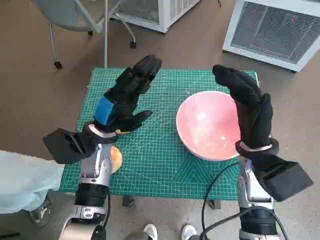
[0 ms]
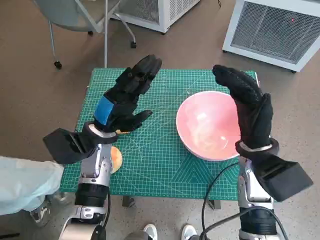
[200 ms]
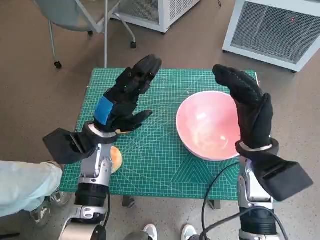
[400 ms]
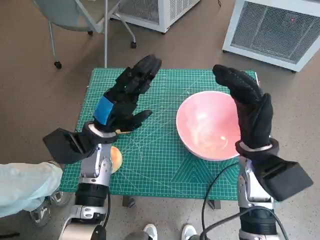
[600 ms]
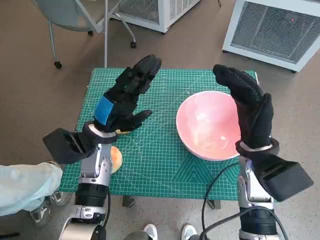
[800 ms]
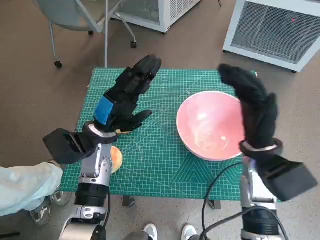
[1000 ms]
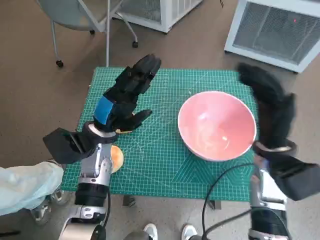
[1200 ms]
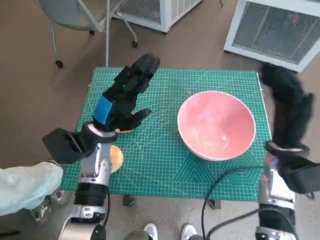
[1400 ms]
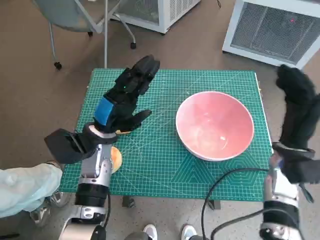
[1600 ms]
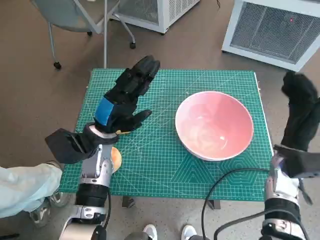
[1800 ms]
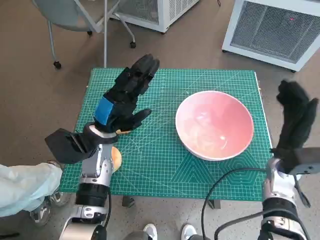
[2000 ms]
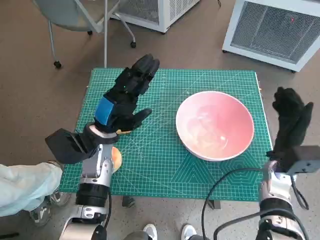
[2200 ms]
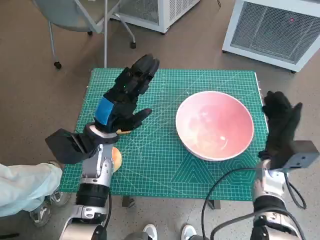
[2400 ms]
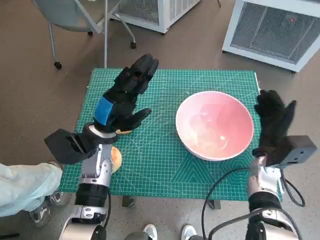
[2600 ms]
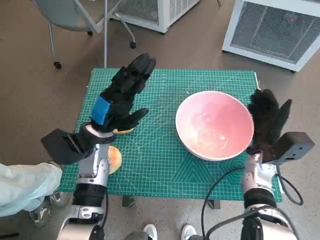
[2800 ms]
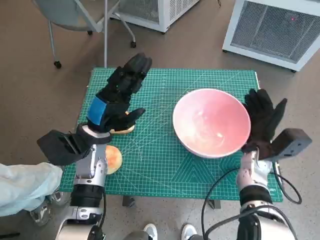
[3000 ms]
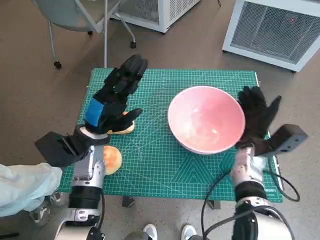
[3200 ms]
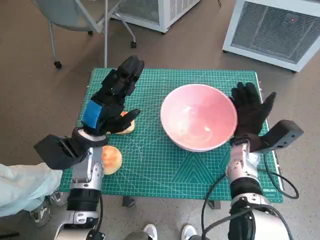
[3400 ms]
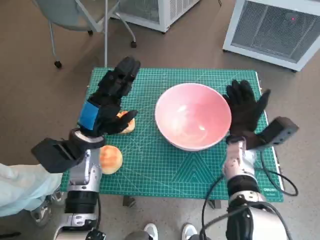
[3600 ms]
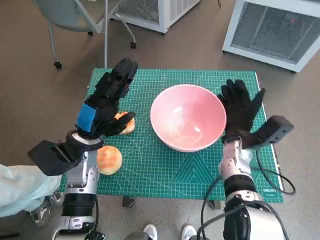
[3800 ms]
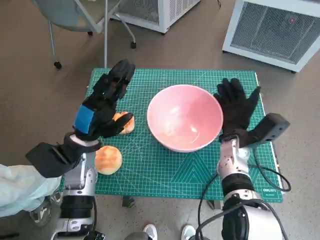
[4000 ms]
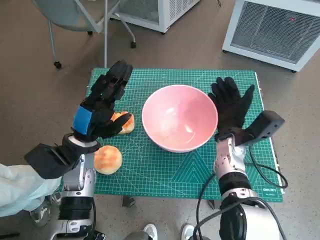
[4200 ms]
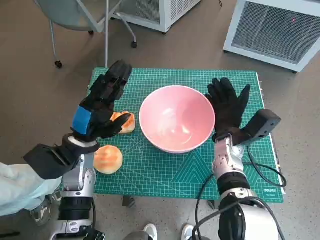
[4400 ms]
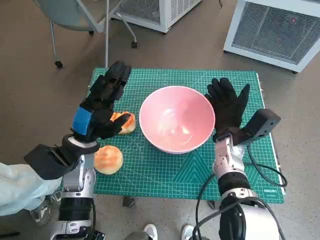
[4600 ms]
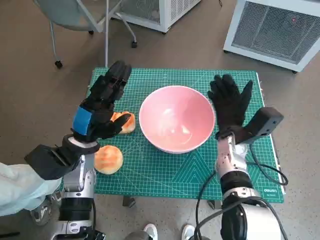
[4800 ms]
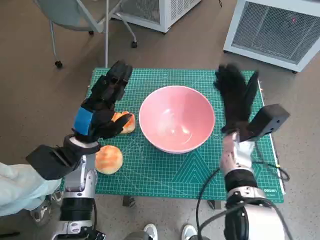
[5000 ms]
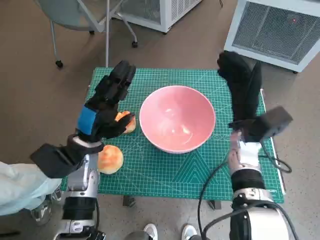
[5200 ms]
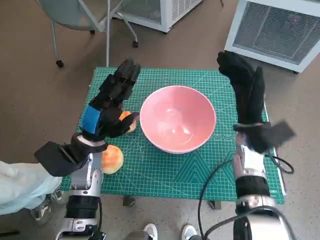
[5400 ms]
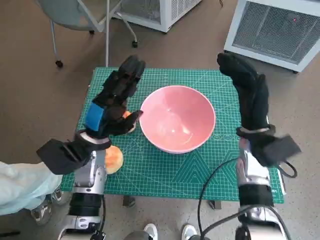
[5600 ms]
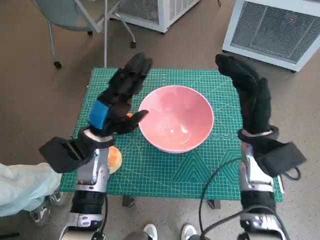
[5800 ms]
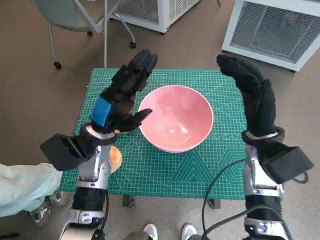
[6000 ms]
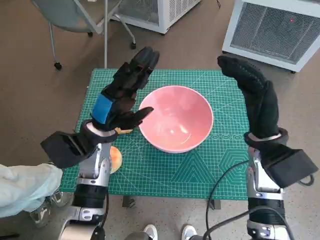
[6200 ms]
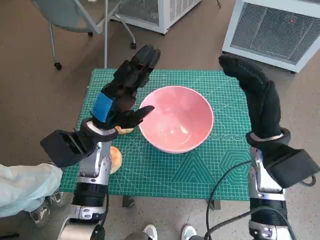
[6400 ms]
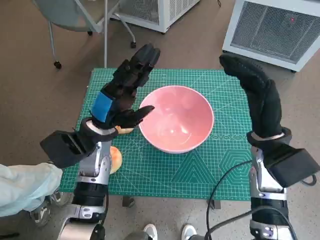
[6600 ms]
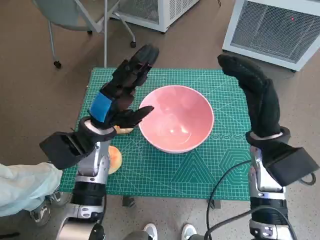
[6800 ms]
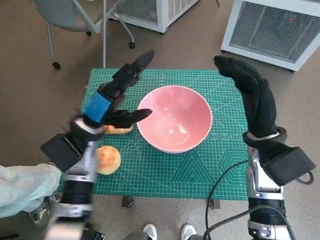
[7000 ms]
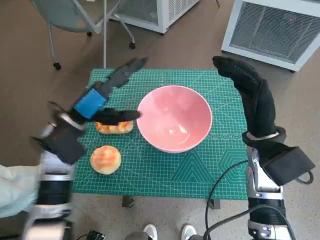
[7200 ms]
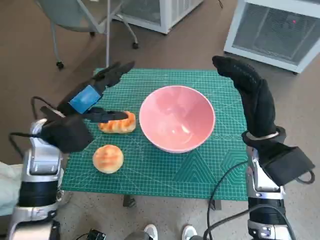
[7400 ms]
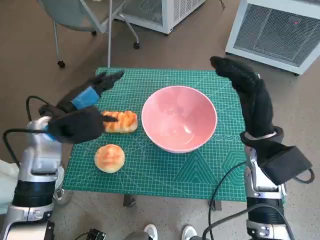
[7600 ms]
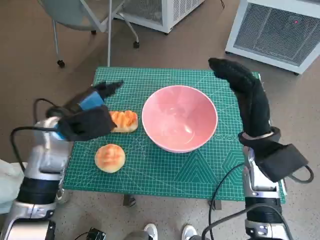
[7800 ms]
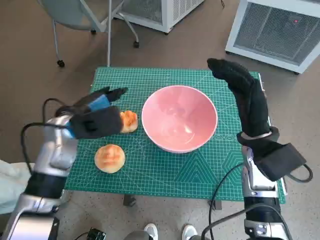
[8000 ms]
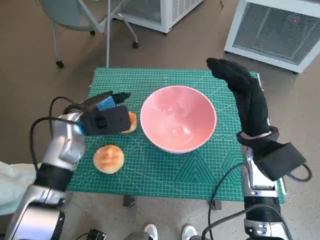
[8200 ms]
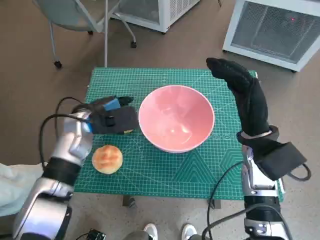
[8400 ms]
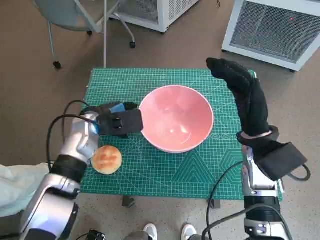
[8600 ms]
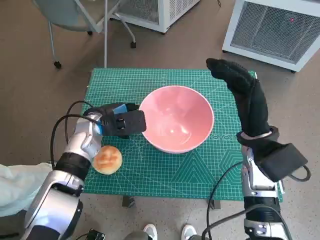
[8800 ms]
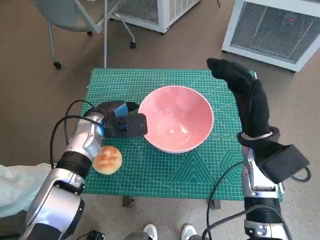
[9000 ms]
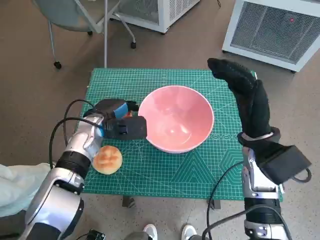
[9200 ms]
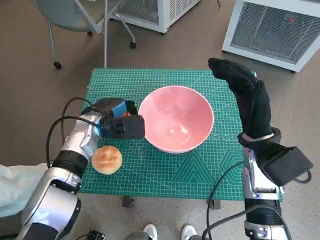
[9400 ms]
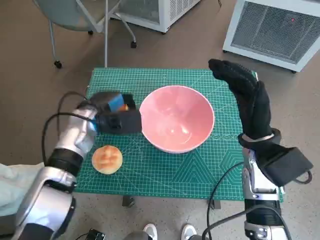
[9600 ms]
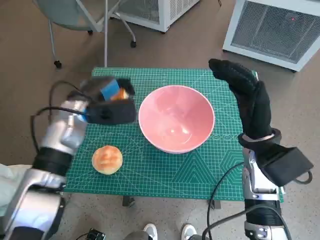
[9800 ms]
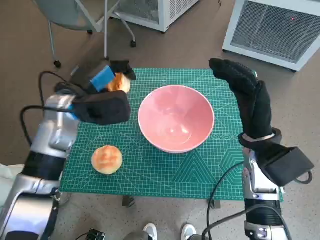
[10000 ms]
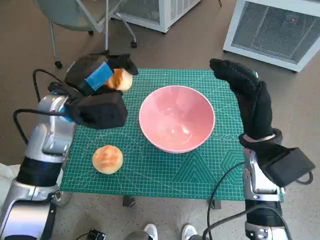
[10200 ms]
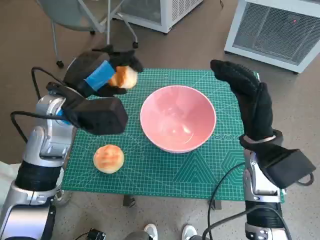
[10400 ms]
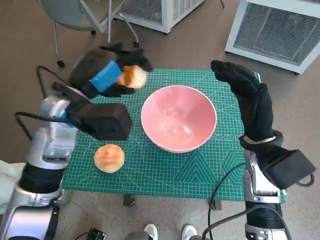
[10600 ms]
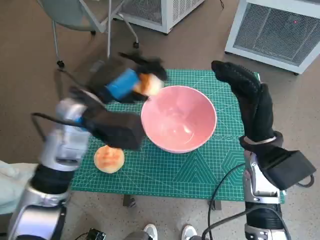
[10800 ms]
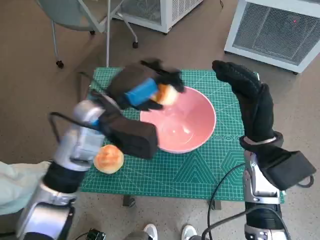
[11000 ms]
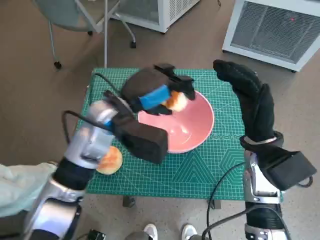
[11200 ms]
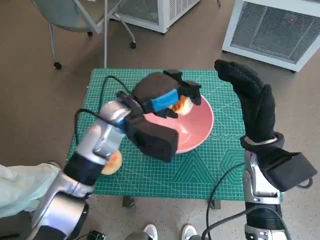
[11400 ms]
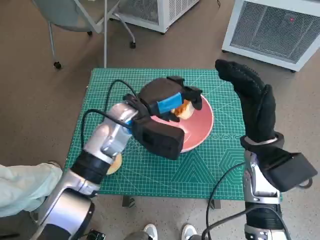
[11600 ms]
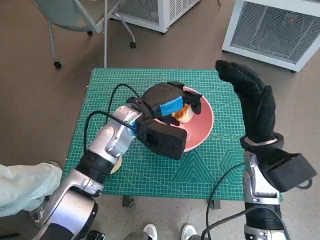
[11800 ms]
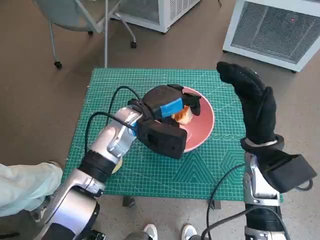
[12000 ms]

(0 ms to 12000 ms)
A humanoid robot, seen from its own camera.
Task of the whole recording: Push the bowl into the center of the table and put the bread into the bowl.
Step, 0 ms - 4800 ms: Move the pink bowl to the center of table with right hand.
Step, 5000 ms - 9000 ms: Grasp the long bread with left hand.
1600 ms - 3000 ms: The right hand goes roughly 5 cm downward.
3000 ms - 4400 ms: The right hand heads to the left, covering approximately 5 cm.
4400 ms - 6000 ms: The right hand is displaced upward by about 10 cm.
6000 ms - 7600 ms: The left hand heads to the left and upward, covering roughly 10 cm.
7600 ms - 9000 ms: The left hand is displaced downward and forward by roughly 10 cm.
9000 ms - 10400 ms: The left hand heads upward, covering about 10 cm.
10400 ms - 12000 ms: The left hand travels to the right and downward by approximately 10 cm.

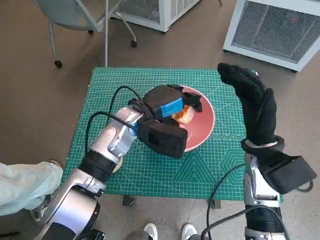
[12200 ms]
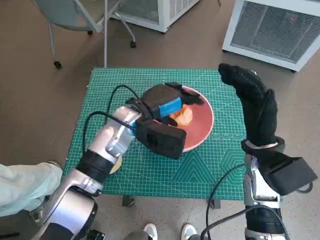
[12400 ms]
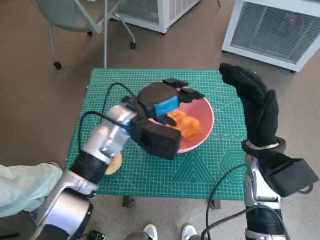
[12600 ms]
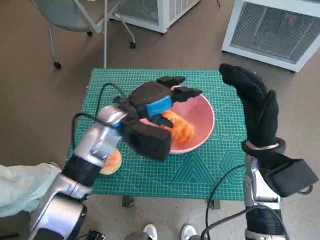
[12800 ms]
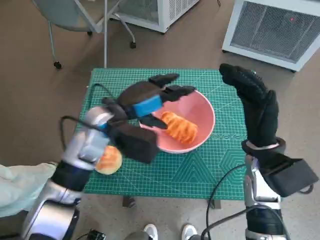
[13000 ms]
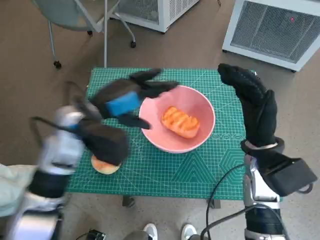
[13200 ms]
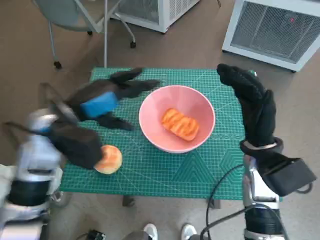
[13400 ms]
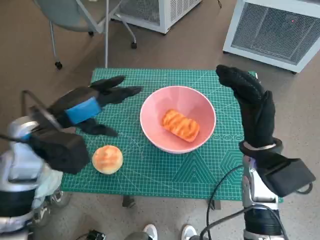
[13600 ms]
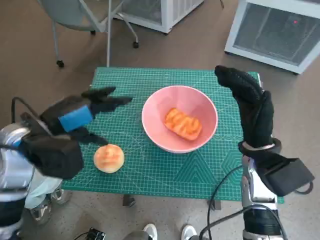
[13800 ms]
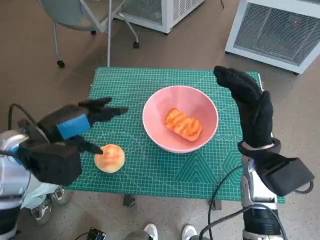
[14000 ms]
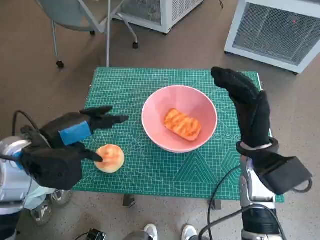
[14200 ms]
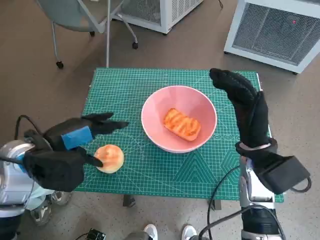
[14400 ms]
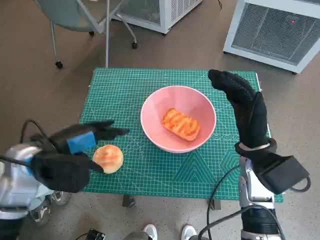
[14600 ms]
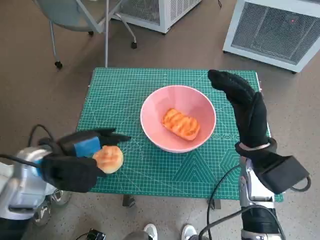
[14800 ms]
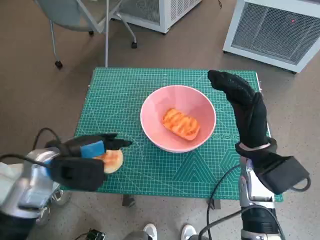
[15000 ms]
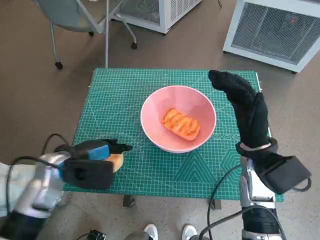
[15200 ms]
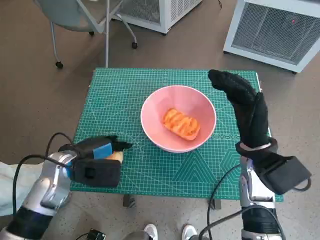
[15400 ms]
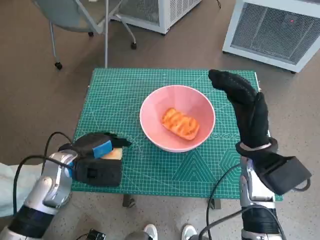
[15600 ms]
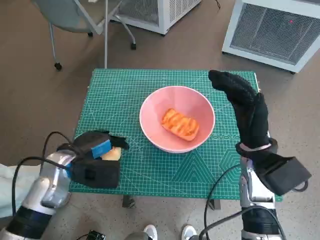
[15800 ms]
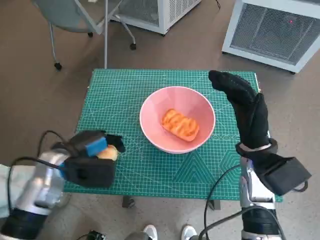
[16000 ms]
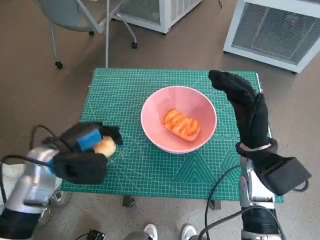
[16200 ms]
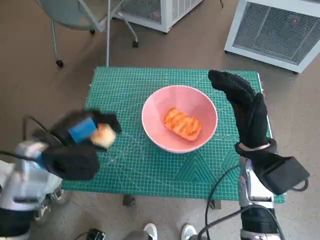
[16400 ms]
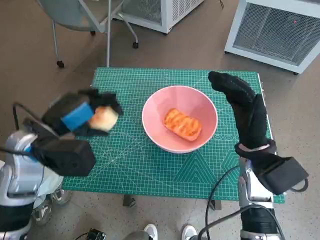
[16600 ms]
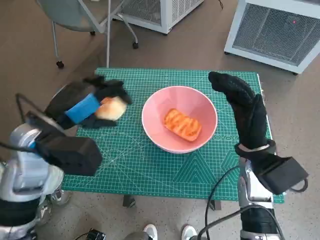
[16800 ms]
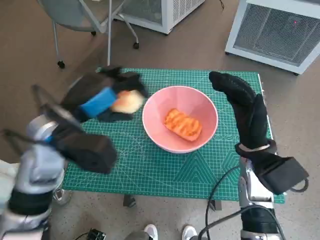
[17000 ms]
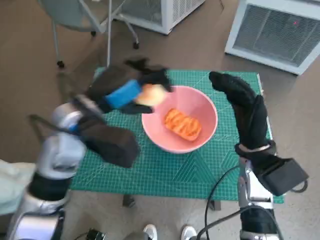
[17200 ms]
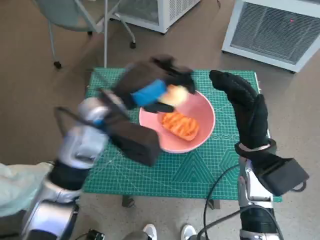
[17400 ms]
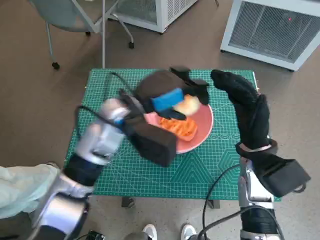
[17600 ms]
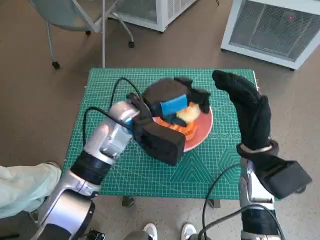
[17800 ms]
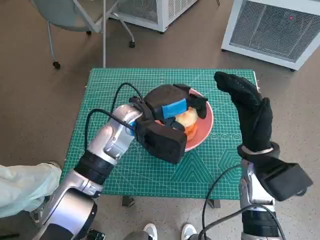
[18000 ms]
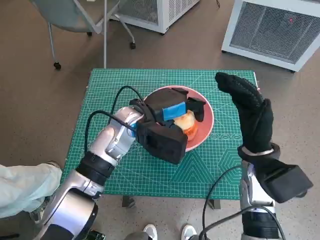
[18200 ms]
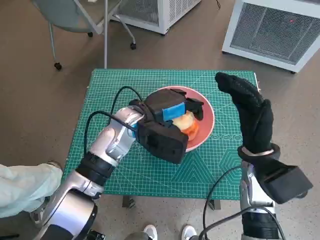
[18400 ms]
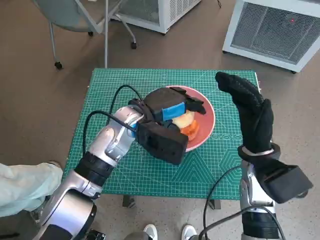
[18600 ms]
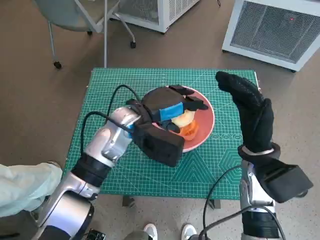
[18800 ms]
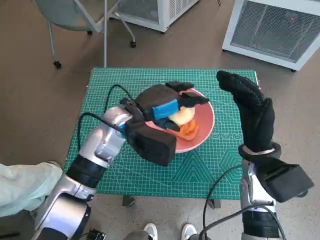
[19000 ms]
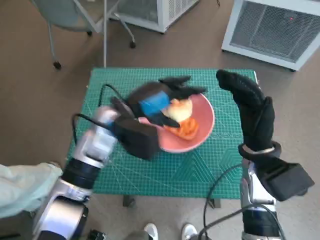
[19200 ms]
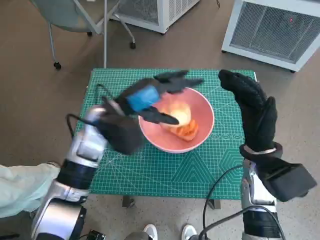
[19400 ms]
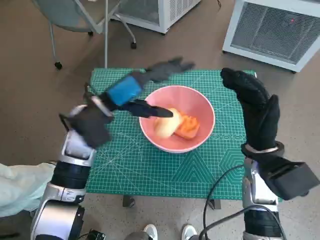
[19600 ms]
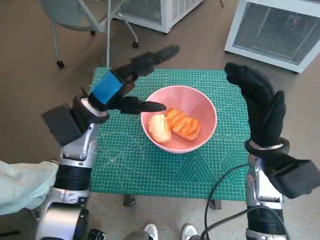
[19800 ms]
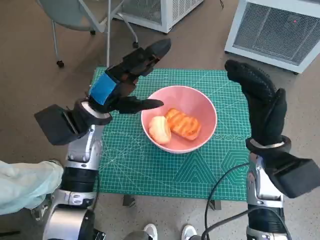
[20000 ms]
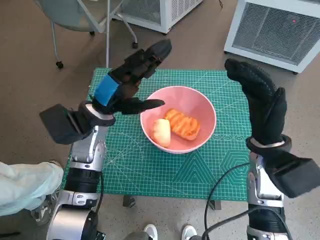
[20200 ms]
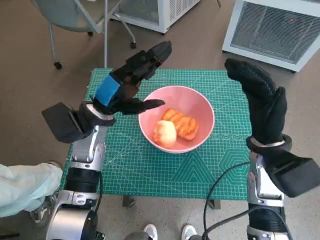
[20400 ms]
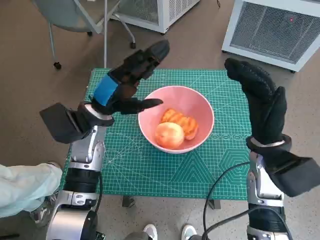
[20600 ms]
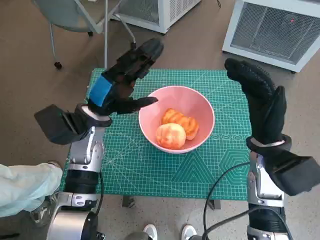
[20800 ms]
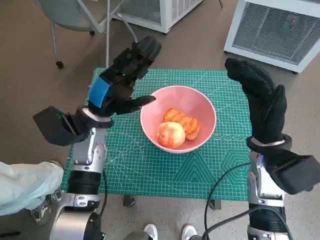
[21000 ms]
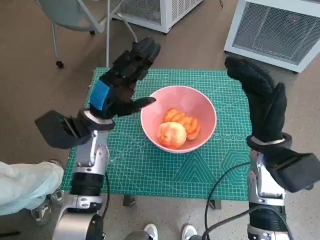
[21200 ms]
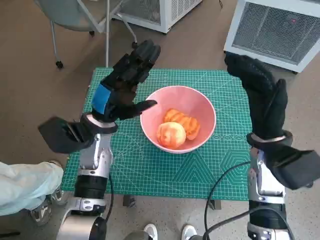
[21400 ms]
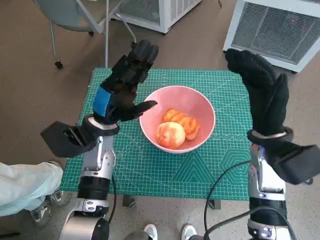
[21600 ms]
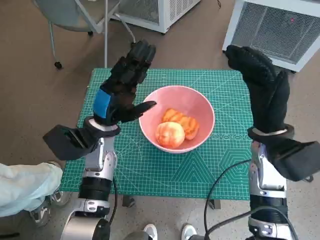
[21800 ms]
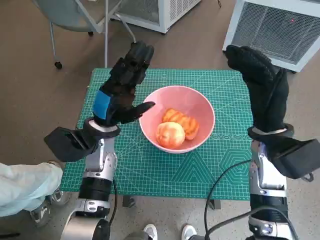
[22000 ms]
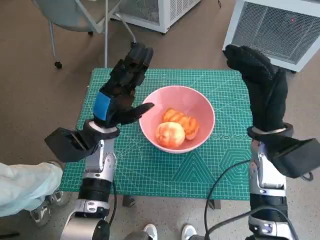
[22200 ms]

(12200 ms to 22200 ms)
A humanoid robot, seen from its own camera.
Task of the whole recording: Push the bowl into the center of the table and put the bread into the bowl.
Step, 13000 ms - 15600 ms: Grasp the round bread with left hand.
Step, 15800 ms - 19400 ms: Place the round bread in pink bowl with left hand.
12200 ms - 13600 ms: The left hand travels to the left, upward and backward by roughly 15 cm.
13600 ms - 15000 ms: The left hand shifts about 5 cm downward.
16400 ms - 18000 ms: The left hand moves to the right and forward, some 15 cm.
18000 ms - 19400 ms: The left hand changes place by roughly 5 cm.
